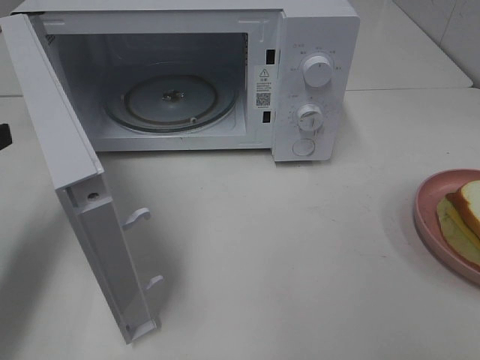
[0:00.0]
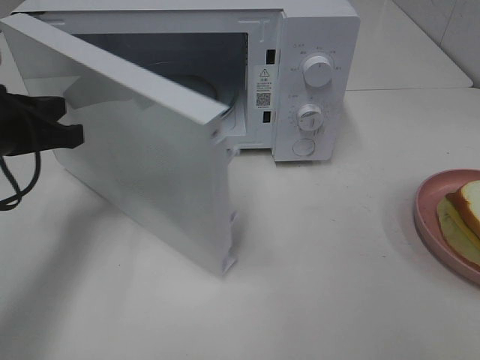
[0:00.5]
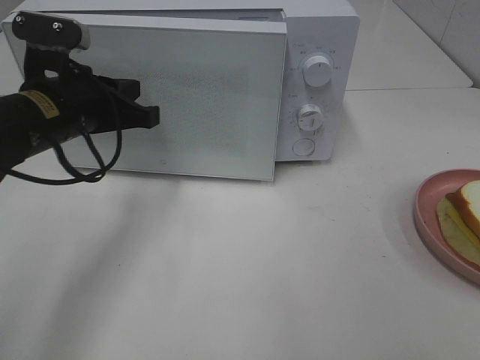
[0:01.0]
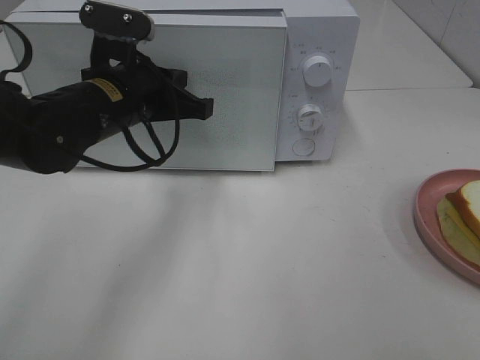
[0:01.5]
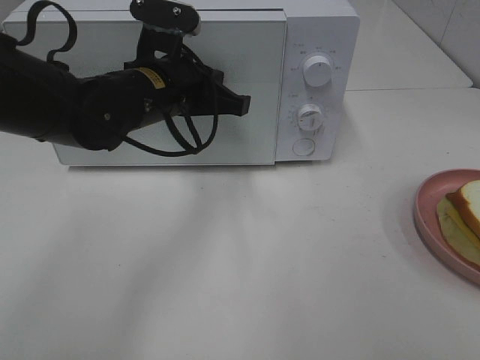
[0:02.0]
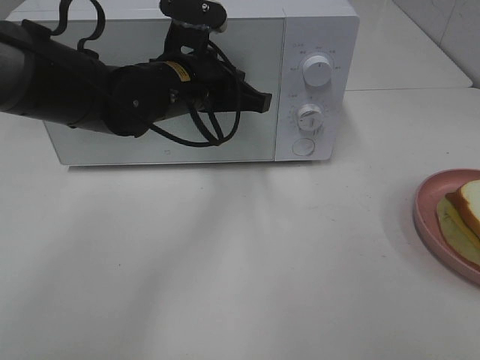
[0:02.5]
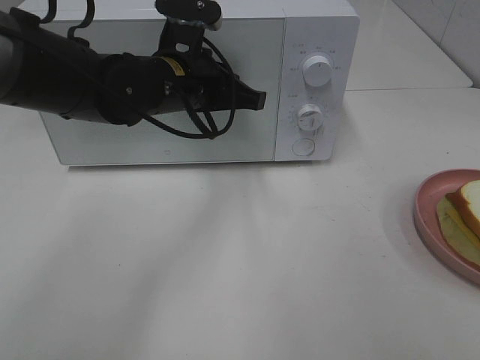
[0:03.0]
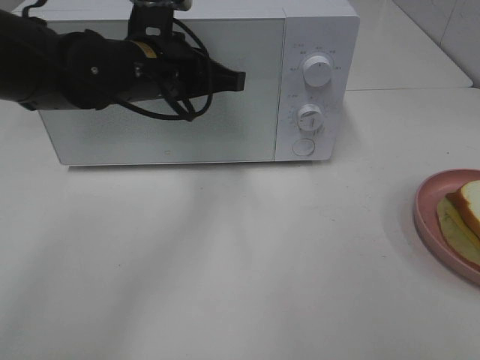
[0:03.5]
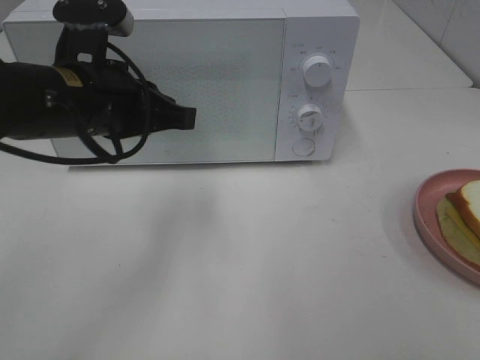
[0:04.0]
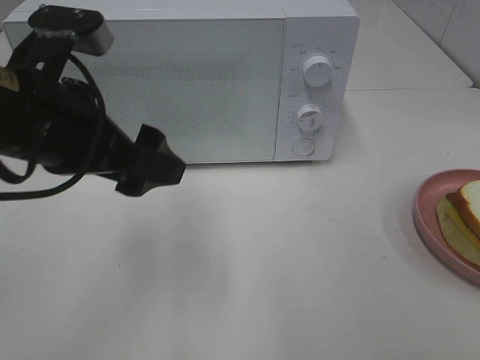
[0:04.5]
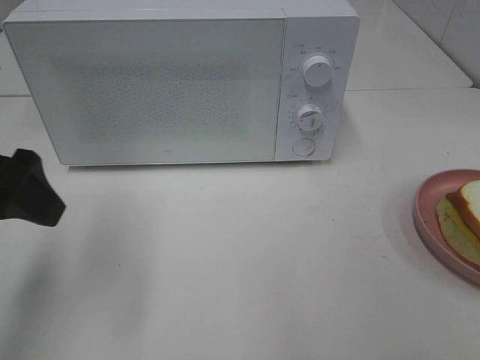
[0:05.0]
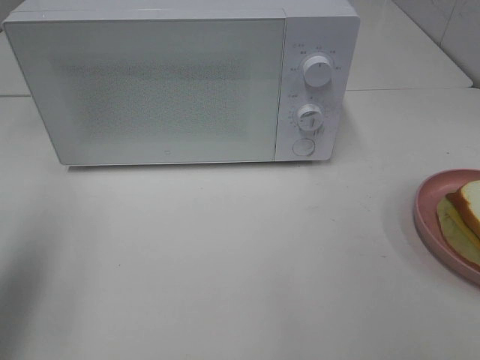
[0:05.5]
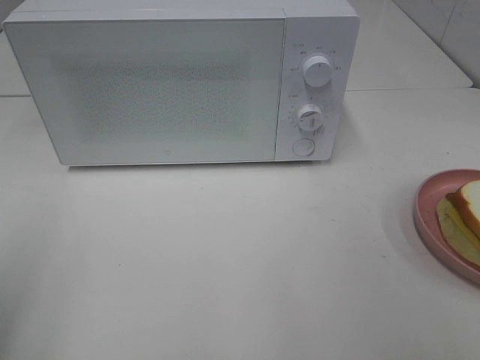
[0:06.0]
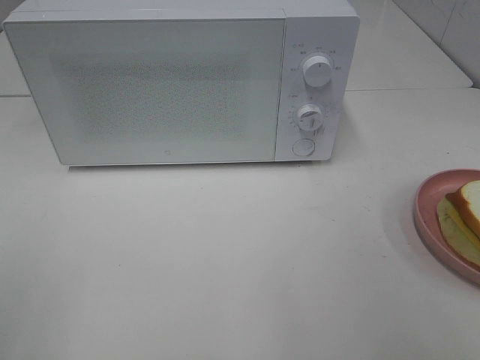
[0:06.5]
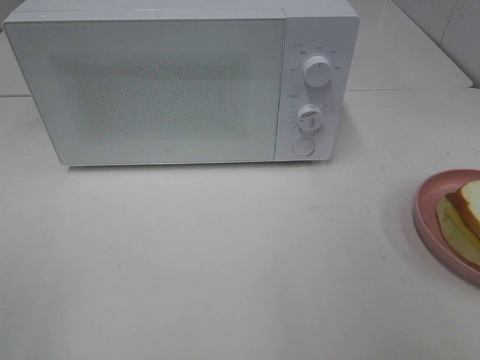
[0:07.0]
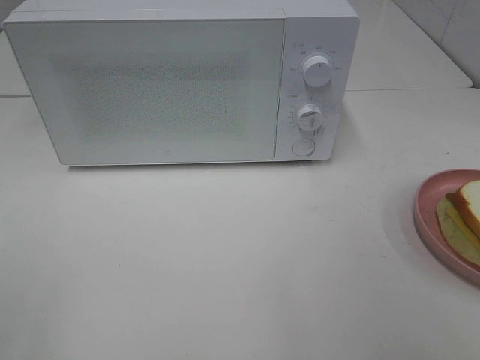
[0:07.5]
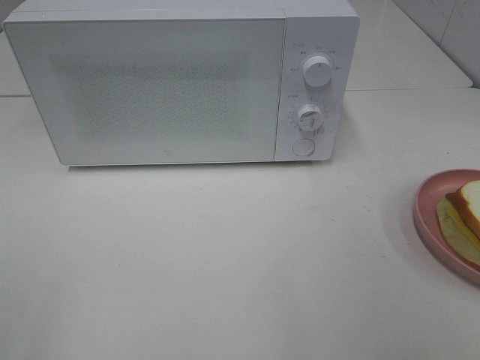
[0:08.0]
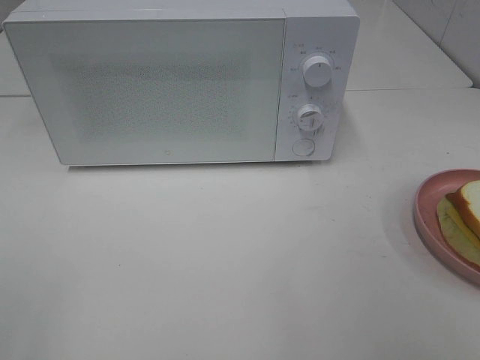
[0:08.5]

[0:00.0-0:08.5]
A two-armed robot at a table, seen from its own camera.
Task of the whole recording: Heat Sandwich.
Step, 0.0 to 3.5 s: Left hand: close the microwave door.
0.0 to 2.0 s: The left gripper heads to the right and forward, covering approximately 25 cm.
2.0 to 4.0 s: The left gripper moves backward and to the left, some 10 cm.
4.0 to 6.5 s: The left gripper shifts some 30 cm backward and to the left, and opens its fingers.

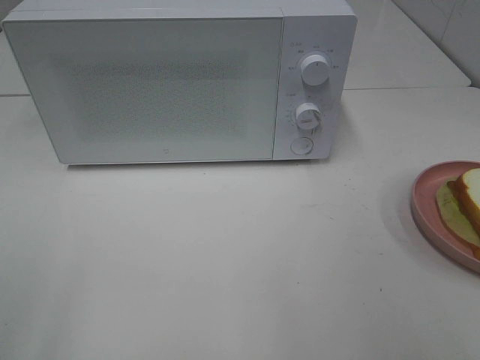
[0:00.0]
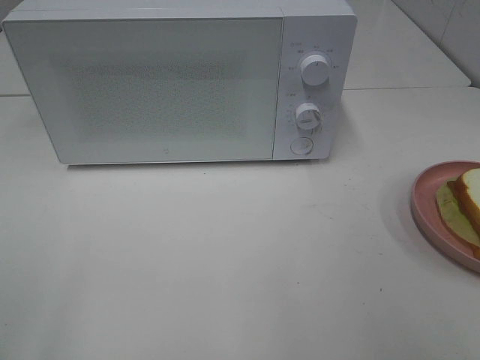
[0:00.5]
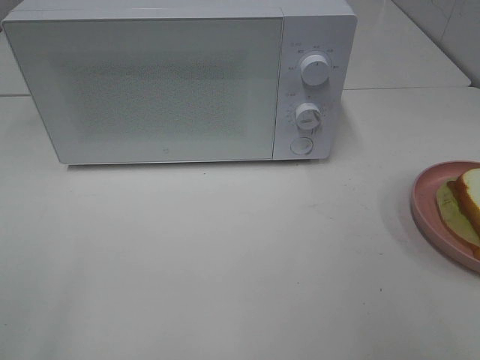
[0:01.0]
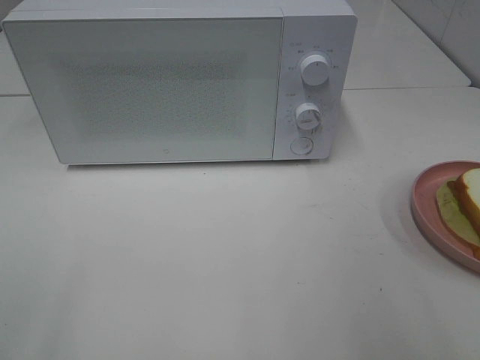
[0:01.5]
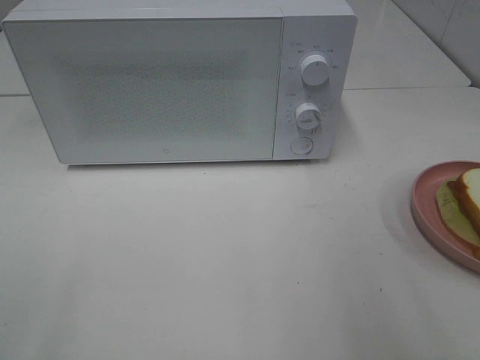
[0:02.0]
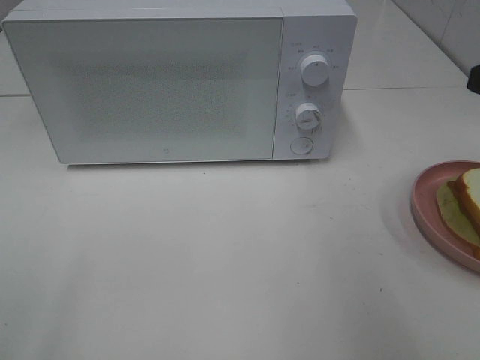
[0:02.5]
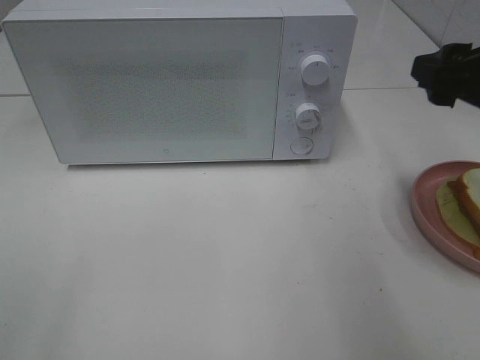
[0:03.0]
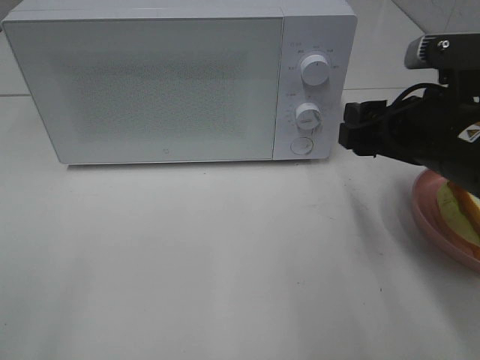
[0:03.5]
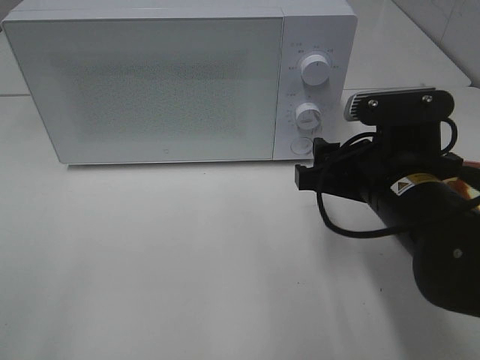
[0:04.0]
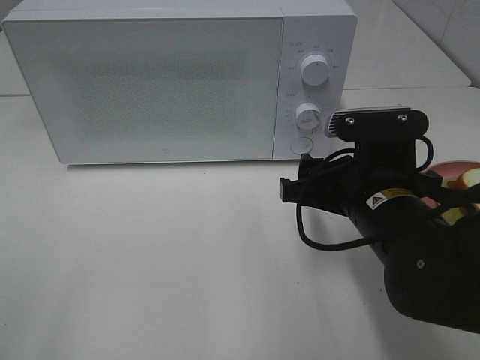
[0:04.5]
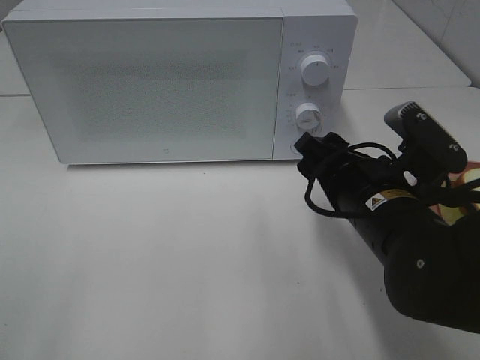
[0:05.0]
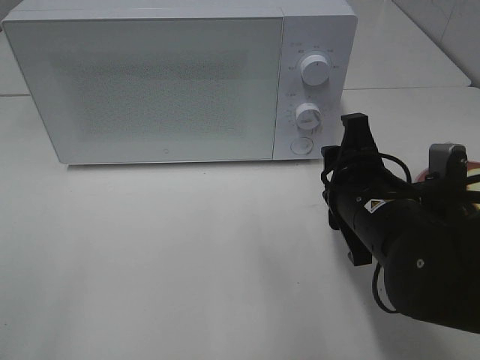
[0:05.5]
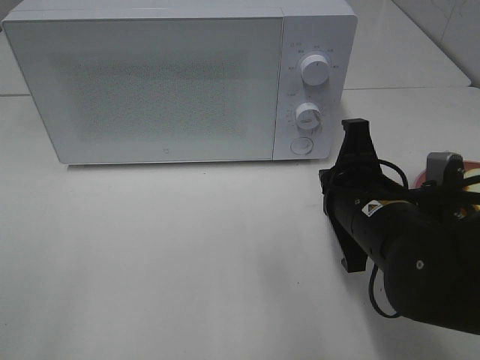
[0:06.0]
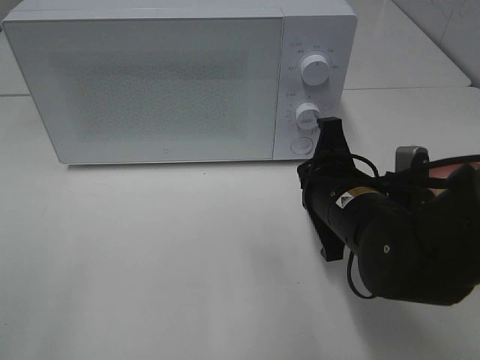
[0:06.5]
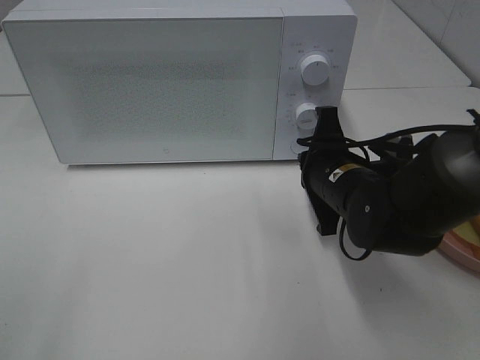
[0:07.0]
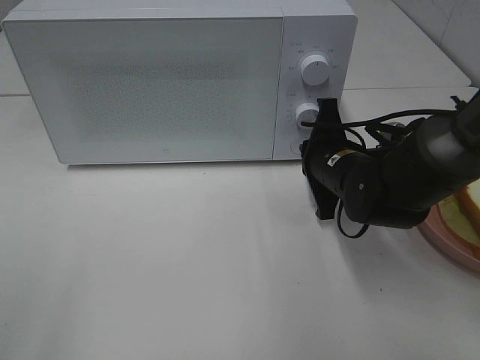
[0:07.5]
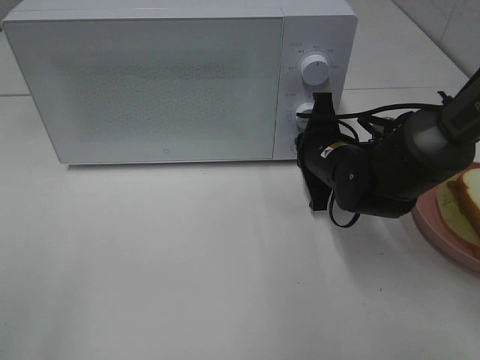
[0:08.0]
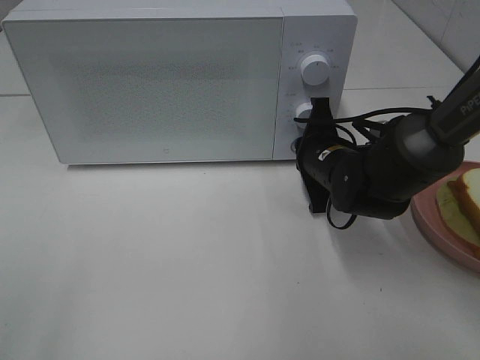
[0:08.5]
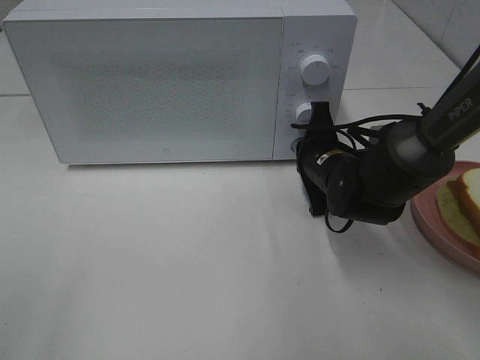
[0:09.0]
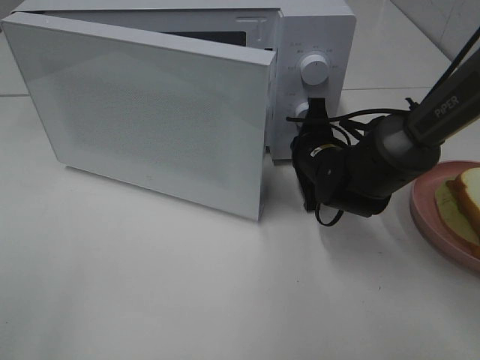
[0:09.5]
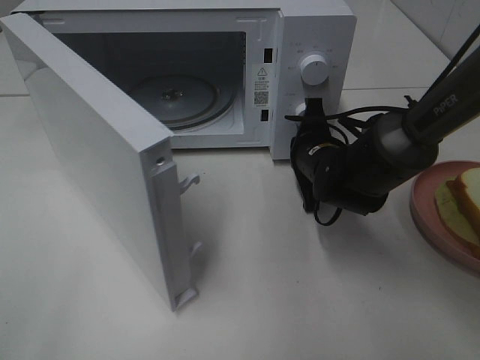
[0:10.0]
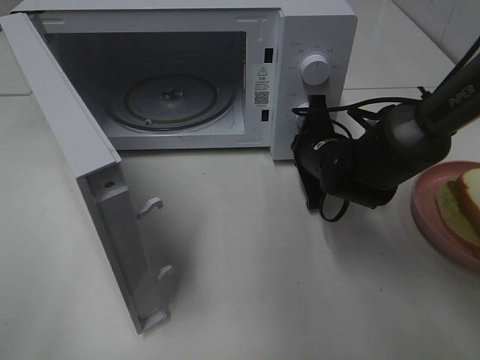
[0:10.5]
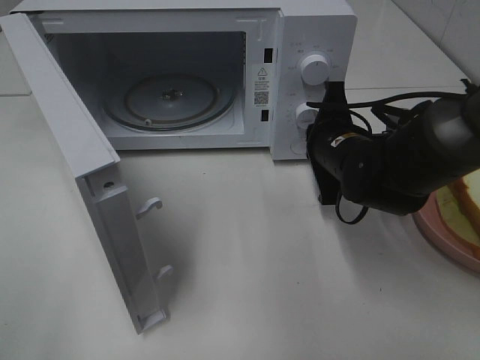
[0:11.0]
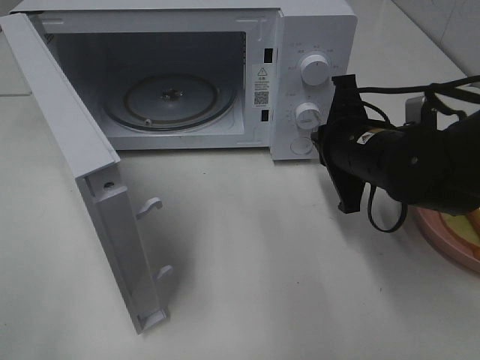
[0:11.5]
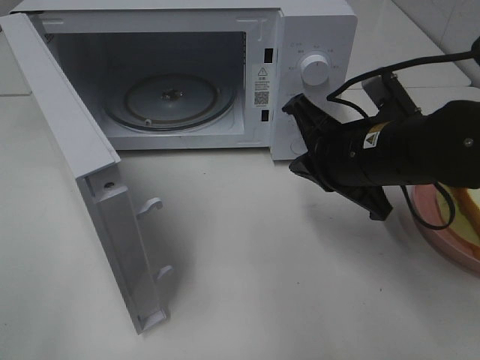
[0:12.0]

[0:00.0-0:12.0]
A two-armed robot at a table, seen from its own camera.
Task of the whole recording: Heat Sandwich.
Step, 0.0 to 10.5 s: Right hand: press the switch.
2.0 to 4.0 s: The right gripper moves downward, to the left and forward, approximately 20 cm.
4.0 to 6.0 s: The right gripper closes.
6.0 to 8.0 s: The right gripper is displaced forward by roughly 15 cm.
10.0 to 12.0 s: The right gripper goes roughly 15 cm backward and upward.

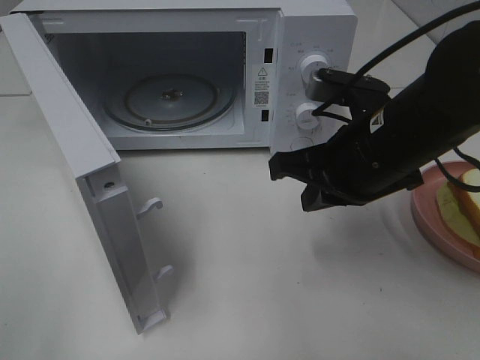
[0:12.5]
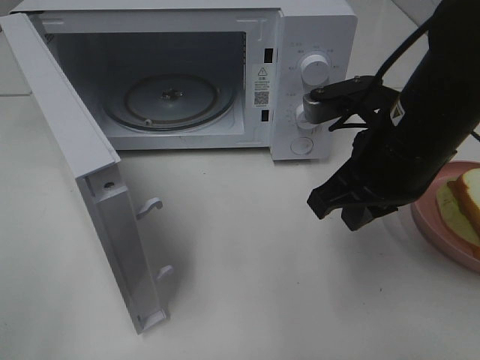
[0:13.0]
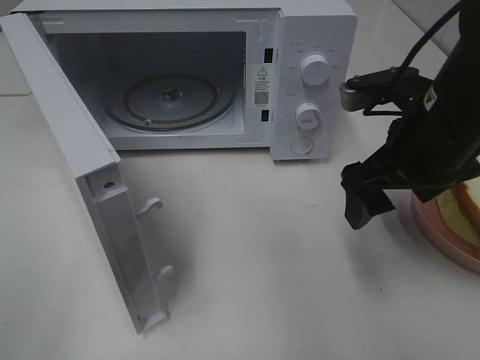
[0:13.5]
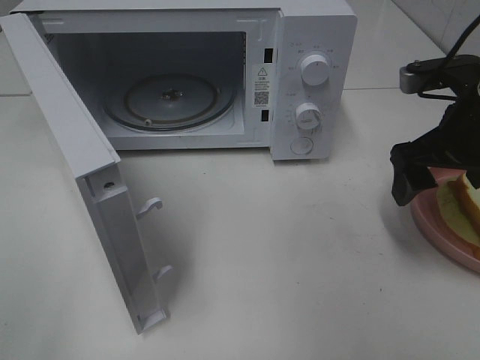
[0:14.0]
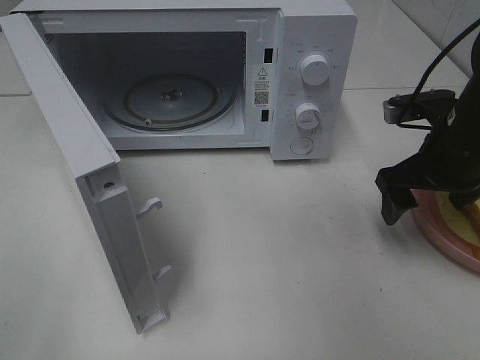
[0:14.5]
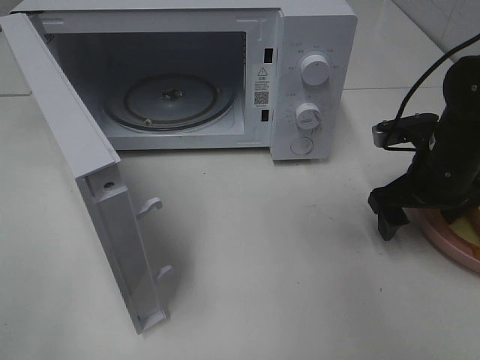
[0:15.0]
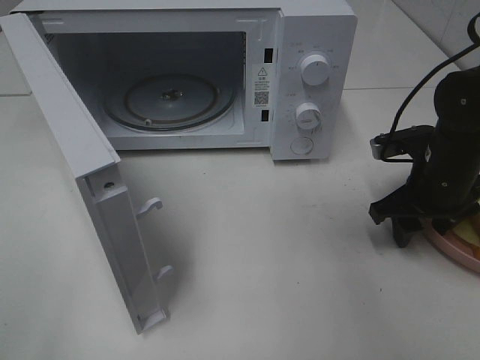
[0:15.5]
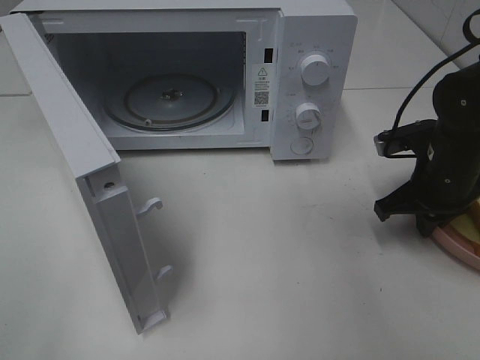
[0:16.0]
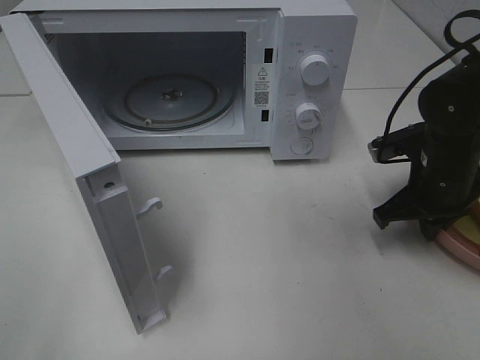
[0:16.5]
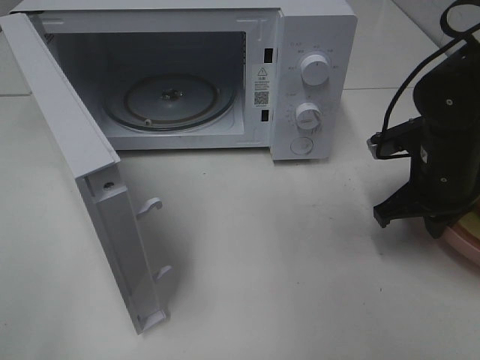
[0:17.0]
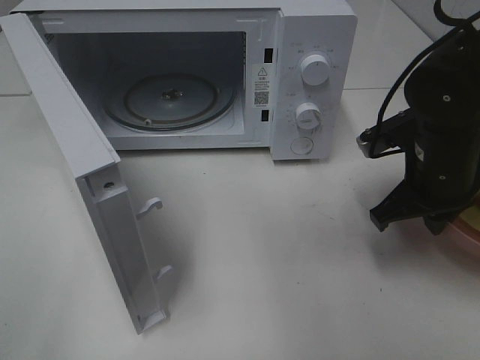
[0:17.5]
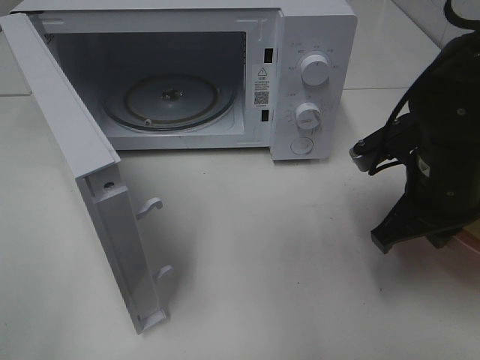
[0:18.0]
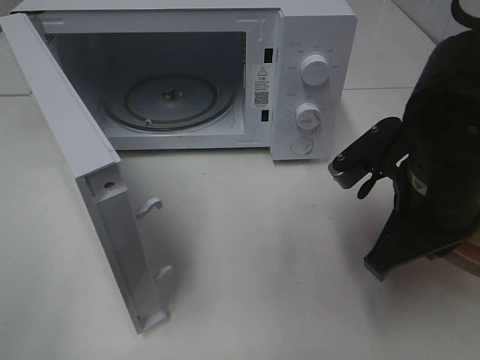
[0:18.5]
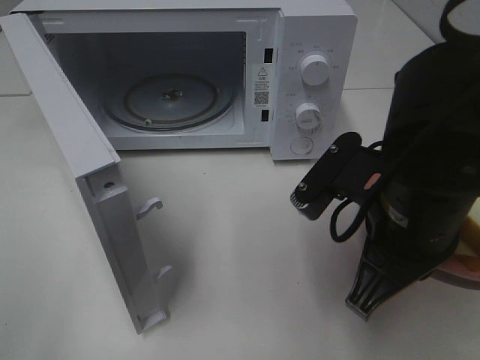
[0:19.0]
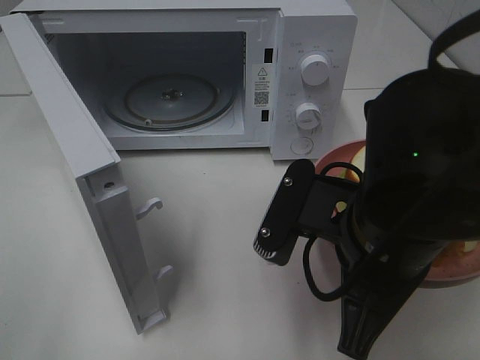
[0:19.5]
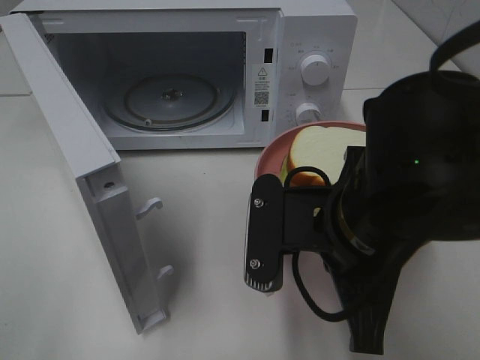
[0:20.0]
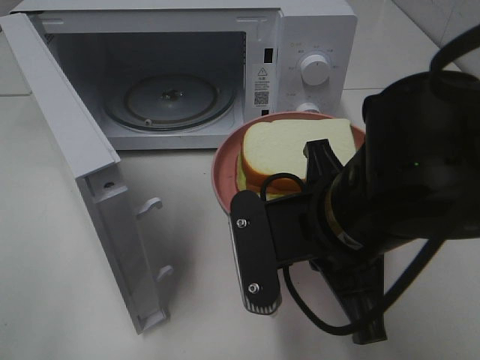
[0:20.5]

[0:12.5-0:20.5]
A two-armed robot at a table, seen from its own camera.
Task of the whole recording: Heat Sandwich.
Step, 12.5 to 16.5 s: Right hand: grab the plate with the sandwich.
12.5 to 14.5 s: The right gripper heads to the right and forward, covering roughly 10 cm, and opens.
14.5 to 16.5 s: The right gripper closes its fingers.
16.5 to 18.5 s: The right gripper travels backward, to the left and upward by roughly 15 cm.
18.5 to 20.5 s: The right gripper is displaced to the left by approximately 10 cm.
